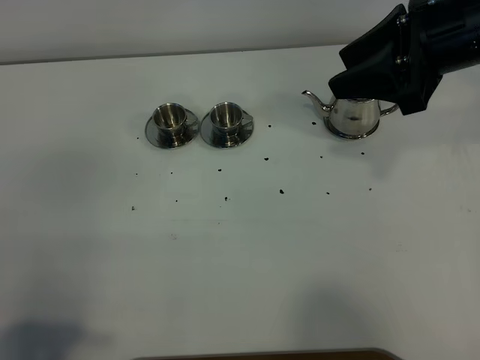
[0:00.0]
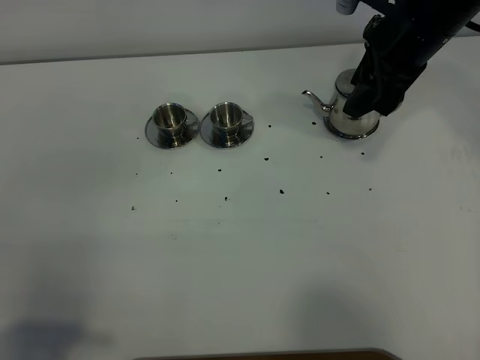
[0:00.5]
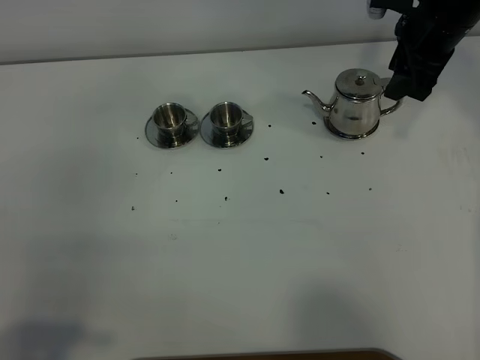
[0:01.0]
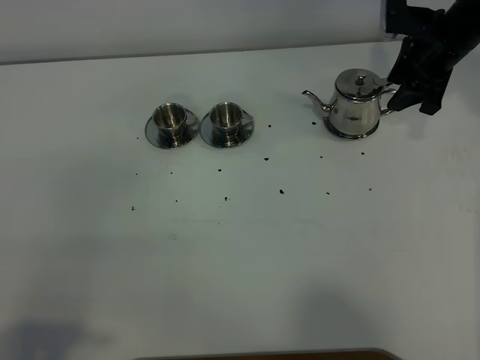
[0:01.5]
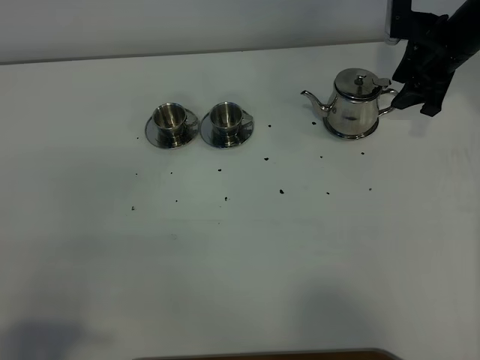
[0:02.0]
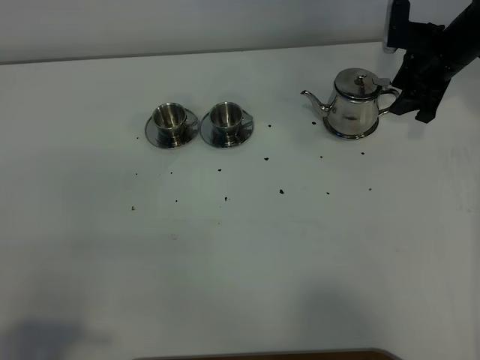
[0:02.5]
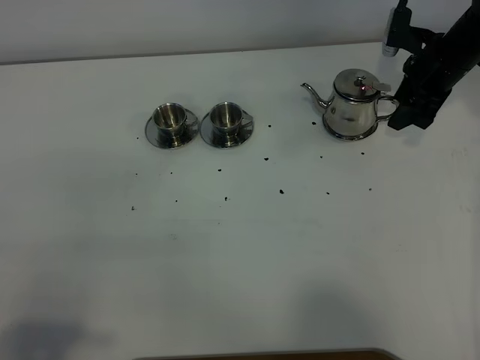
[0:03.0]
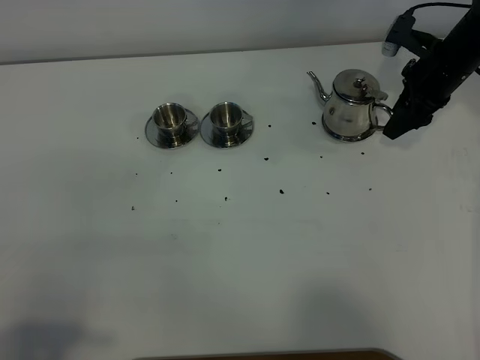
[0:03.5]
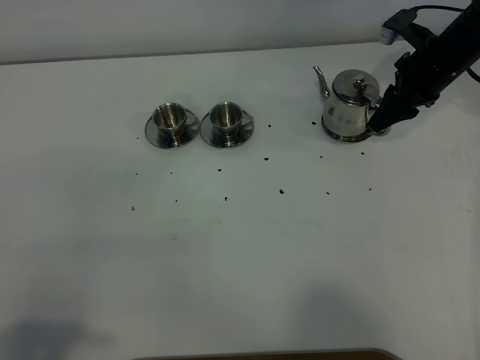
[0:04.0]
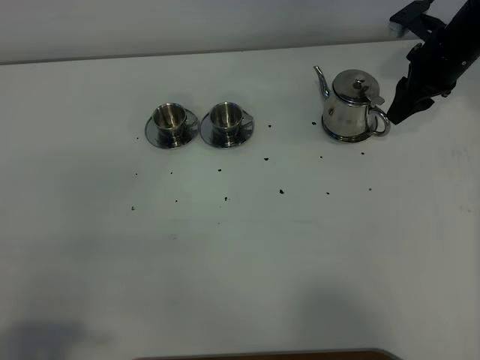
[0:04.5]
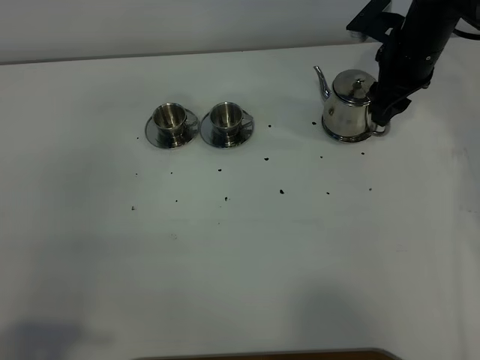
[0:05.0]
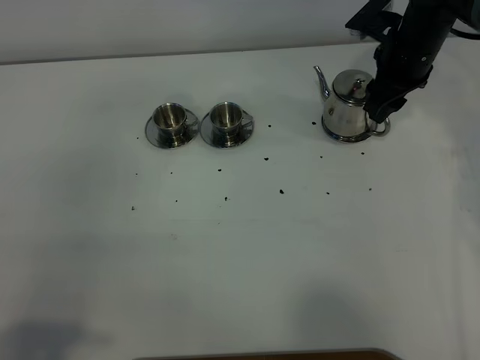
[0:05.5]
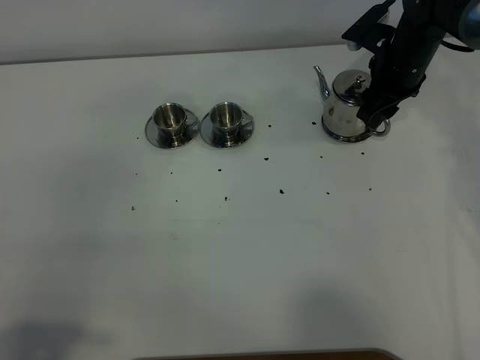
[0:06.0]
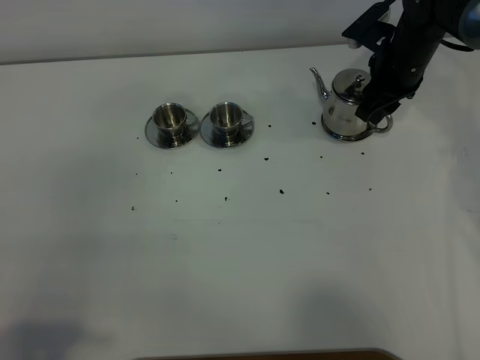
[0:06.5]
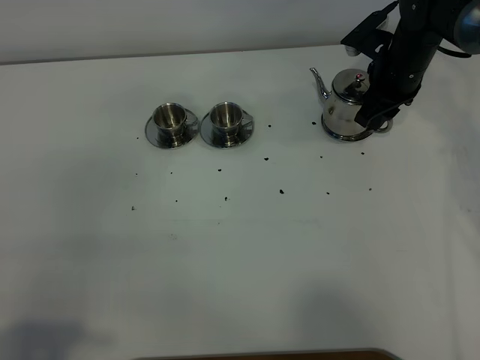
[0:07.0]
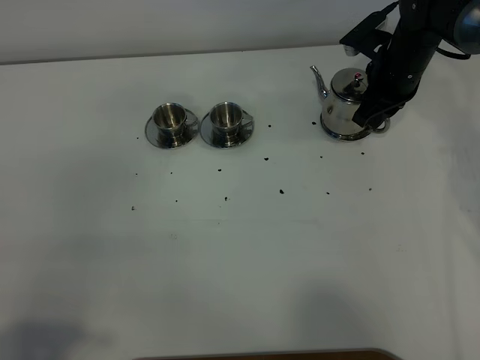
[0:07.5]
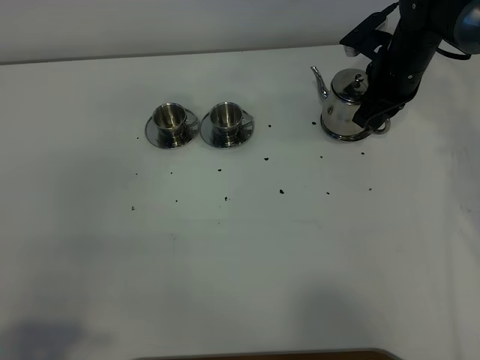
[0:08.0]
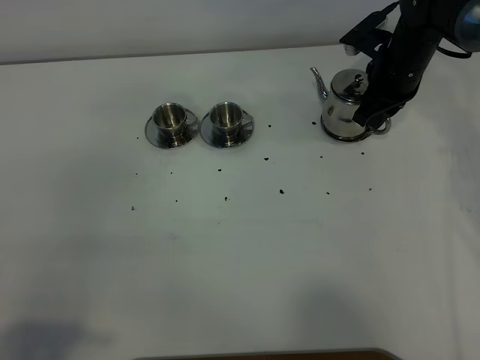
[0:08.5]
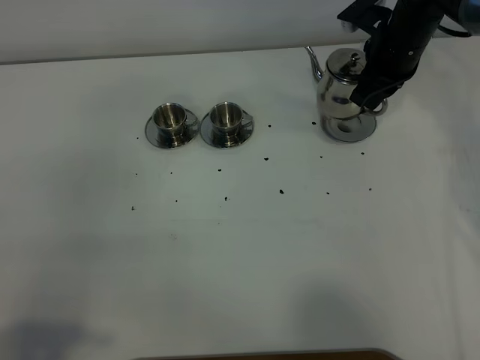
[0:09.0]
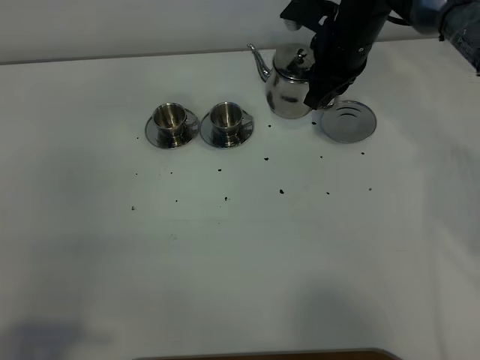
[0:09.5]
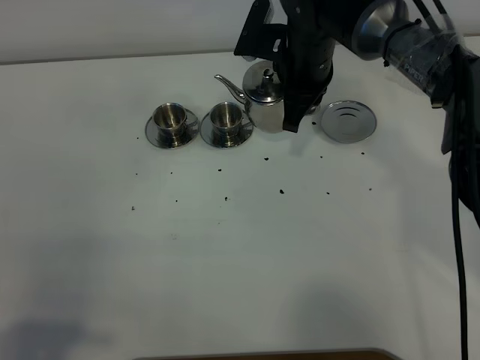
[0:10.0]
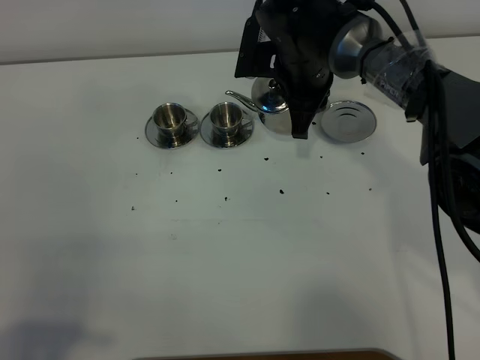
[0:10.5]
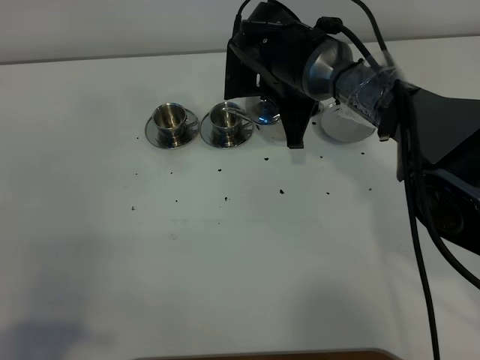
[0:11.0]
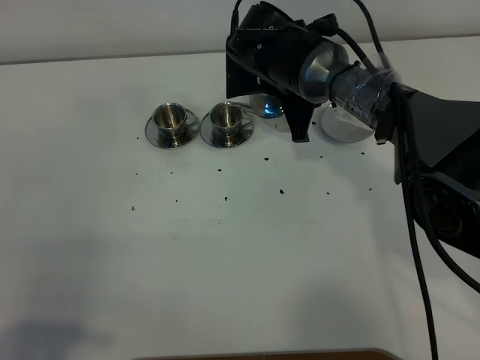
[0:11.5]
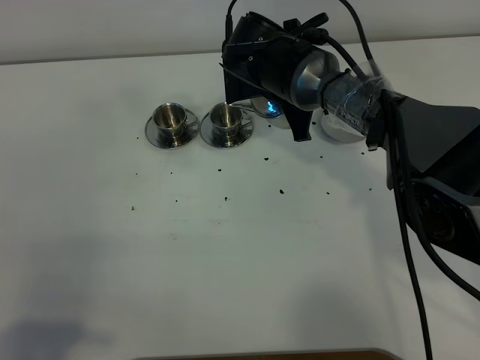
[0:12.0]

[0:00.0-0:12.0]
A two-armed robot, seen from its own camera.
Task of the whole recording: grasp the stainless steel teapot and pour the tea into the two stainless steel teacups one by one, put the stainless steel teapot back in its original place.
Step, 0:00.0 to 0:08.5: Pick up the teapot with the right gripper.
0:00.0 to 0:02.0: The right gripper goes roughly 25 cm forward and downward.
0:04.0 to 0:06.0: The right gripper is displaced to the left by about 5 cm.
0:06.0 to 0:08.0: The right gripper closes up.
0:08.0 to 0:10.0: The right gripper goes about 15 cm to the left, upward and backward.

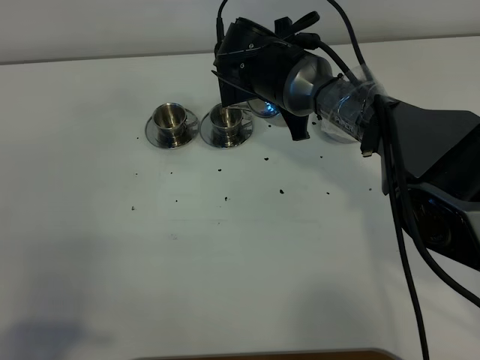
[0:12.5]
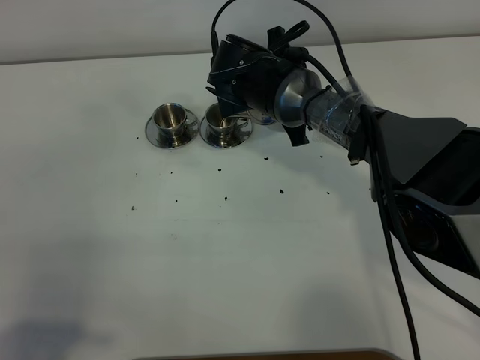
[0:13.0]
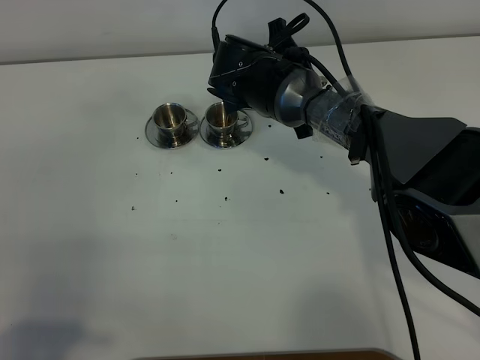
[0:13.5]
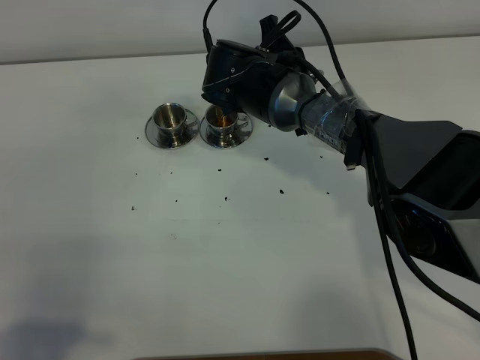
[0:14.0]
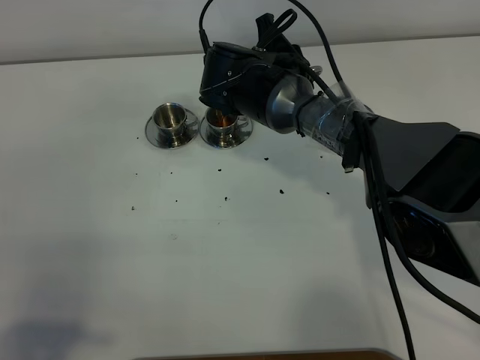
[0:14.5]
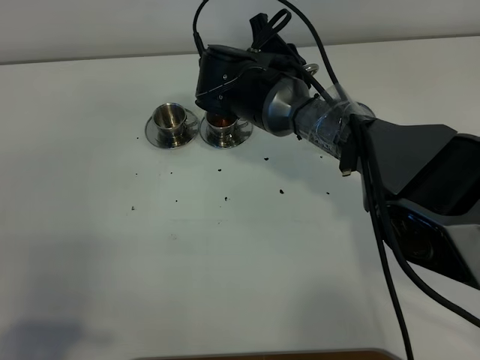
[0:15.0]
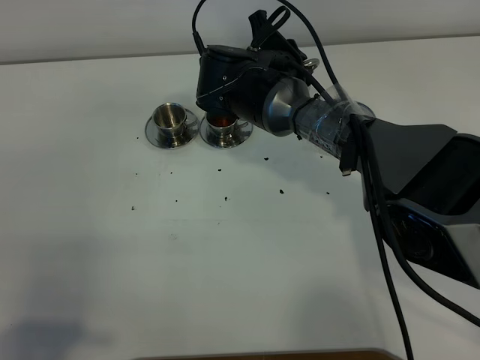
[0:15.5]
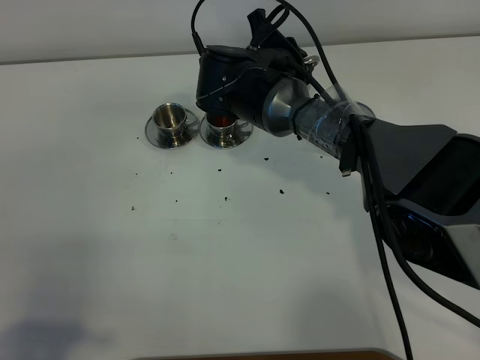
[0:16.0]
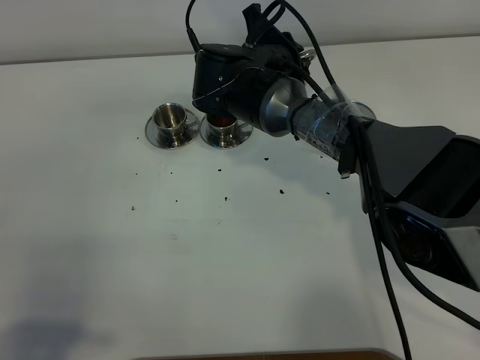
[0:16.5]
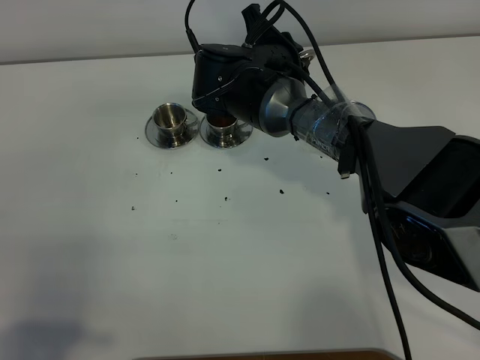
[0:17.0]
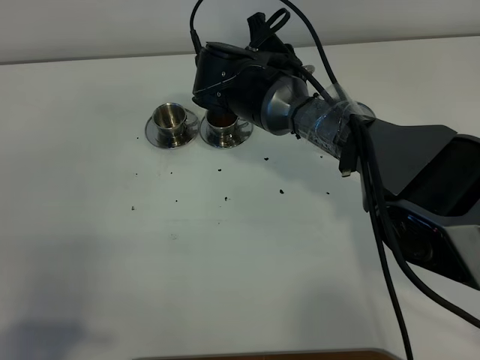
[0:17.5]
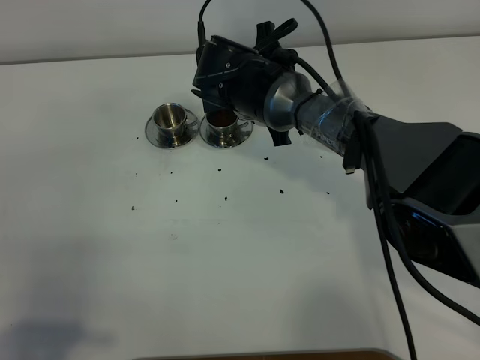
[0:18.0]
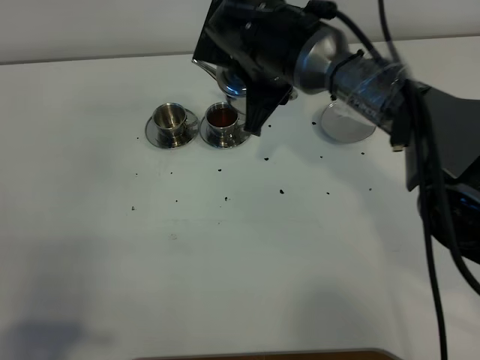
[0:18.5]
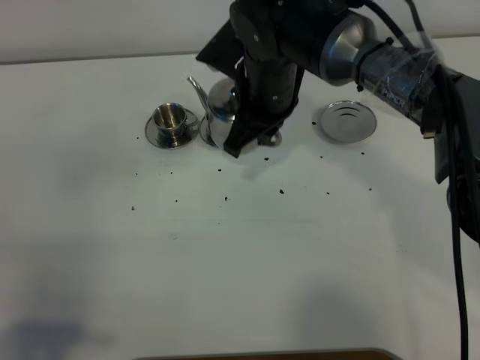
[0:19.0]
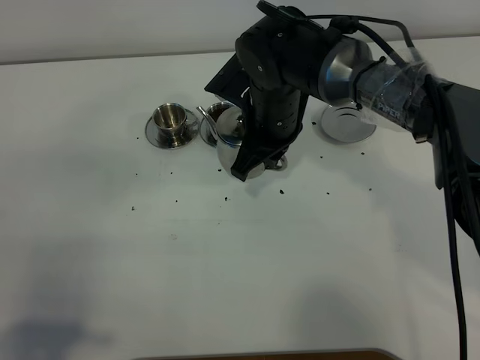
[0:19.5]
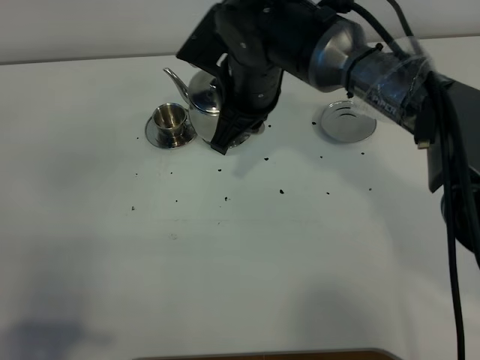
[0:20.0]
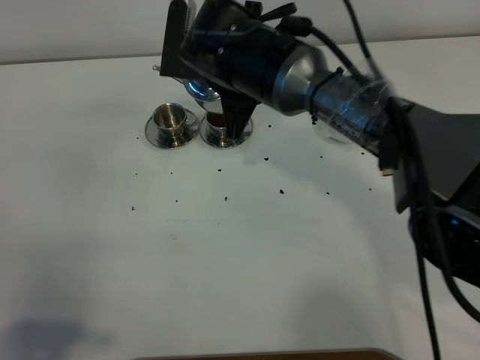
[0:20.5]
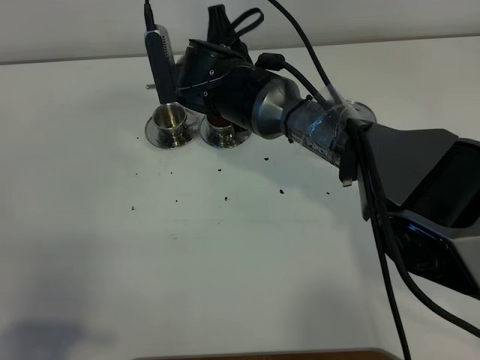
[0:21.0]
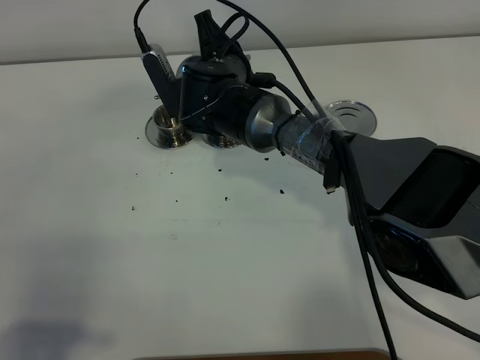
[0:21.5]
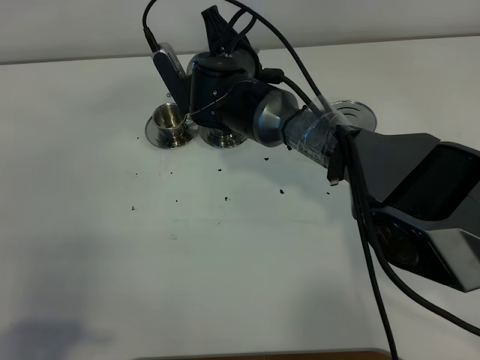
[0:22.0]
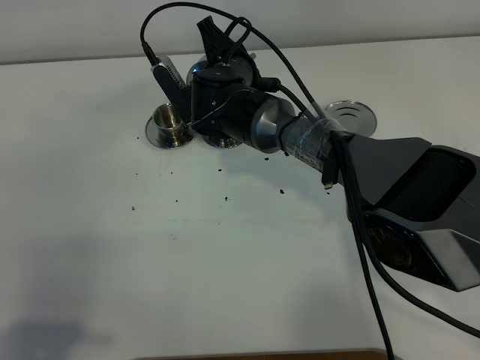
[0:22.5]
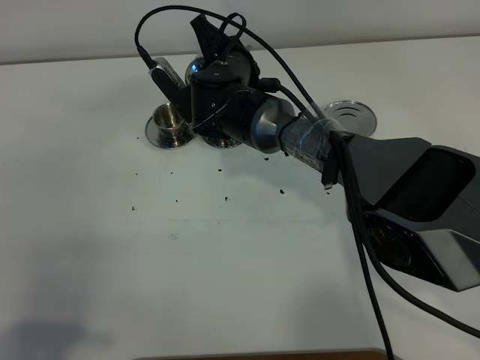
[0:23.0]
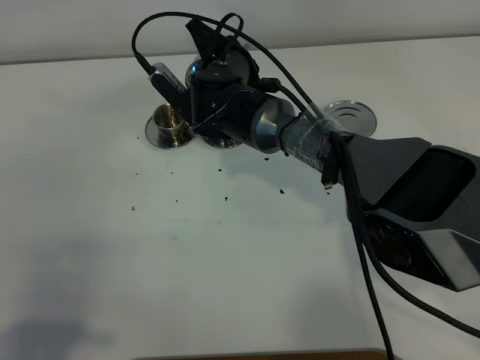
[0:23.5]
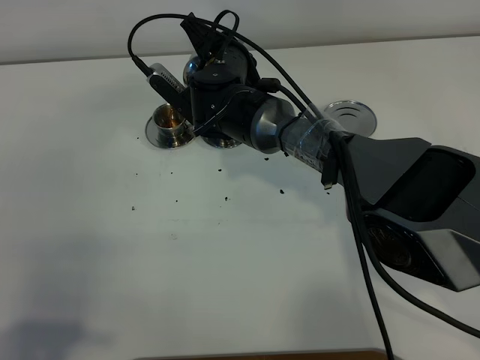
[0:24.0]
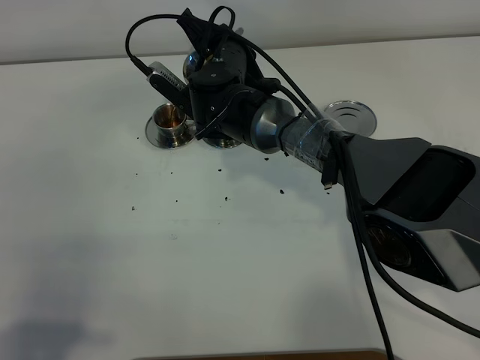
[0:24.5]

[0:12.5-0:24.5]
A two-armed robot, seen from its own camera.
Task of the whole recording: grasp the stainless steel teapot and pour the tea into the two stainless steel teacups one by one, put the stainless steel teapot back in its original place.
0:12.5 to 0:14.5: There are only small adjustments of the grippers.
0:14.5 to 0:16.5: The grippers make only small movements.
0:20.5 to 0:22.5: The right gripper goes approximately 5 cm downward.
0:22.5 to 0:24.5: The grippers make only small movements.

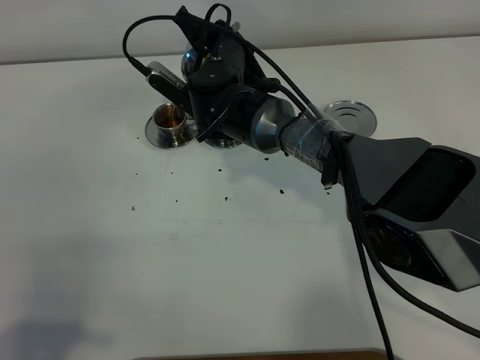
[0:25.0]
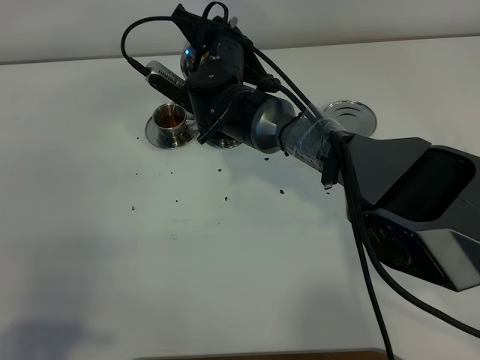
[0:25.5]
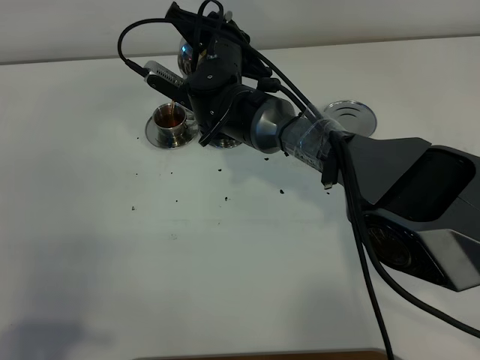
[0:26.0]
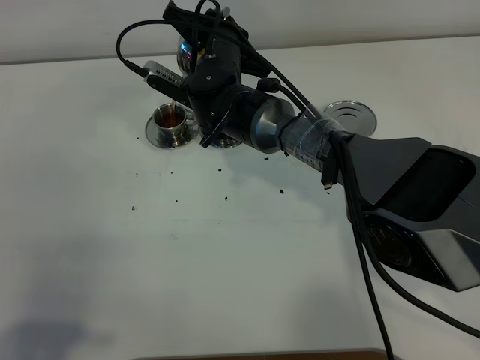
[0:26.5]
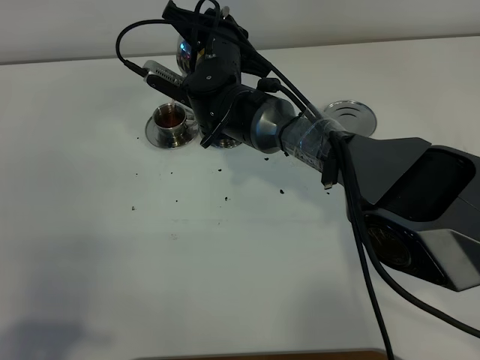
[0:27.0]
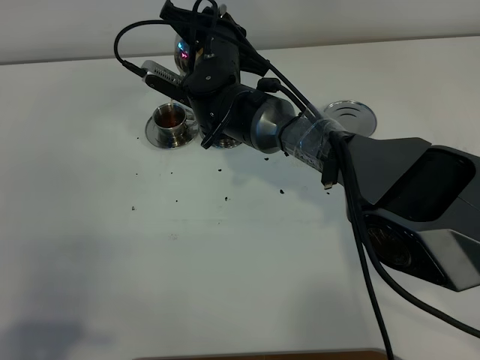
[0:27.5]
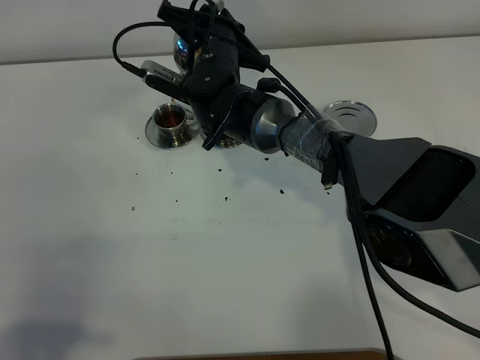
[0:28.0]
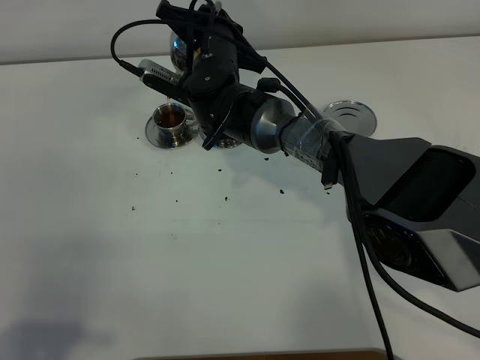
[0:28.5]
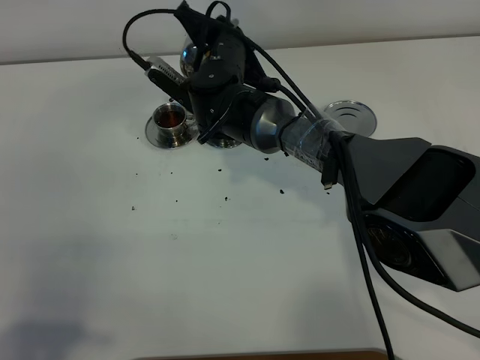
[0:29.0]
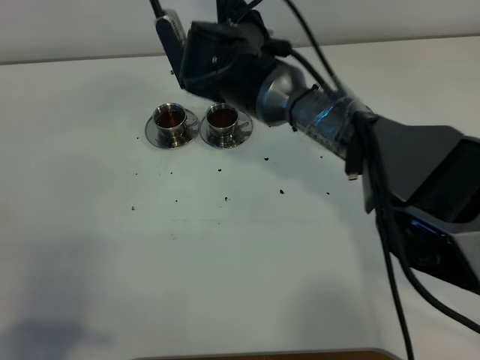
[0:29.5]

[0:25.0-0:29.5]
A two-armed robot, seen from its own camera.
Task of the whole recording: grasp the stainless steel teapot and pour the tea into the two stainless steel teacups one by one, put the stainless steel teapot back in its original place.
Step, 0:25.0 to 0:29.0: Pour tea into the teacup with the right gripper.
0:25.0 to 0:27.0: The grippers make only small movements.
0:27.0 to 0:29.5: The right gripper changes place by approximately 5 cm.
